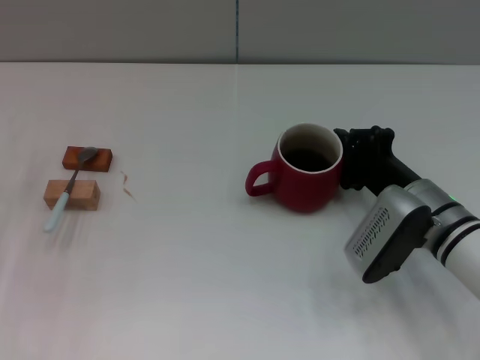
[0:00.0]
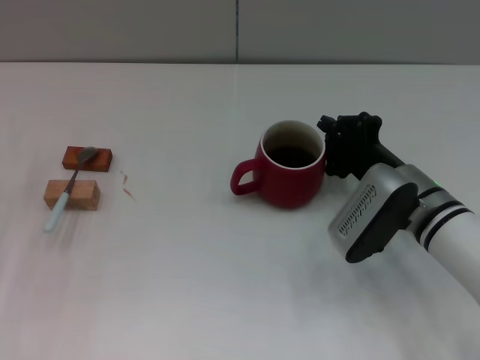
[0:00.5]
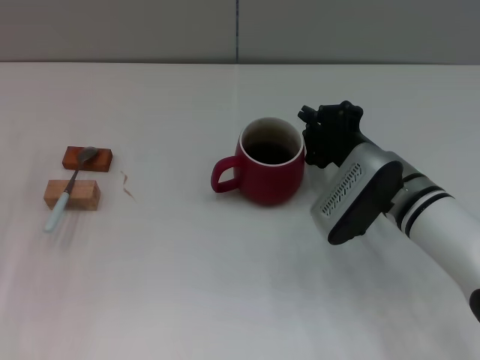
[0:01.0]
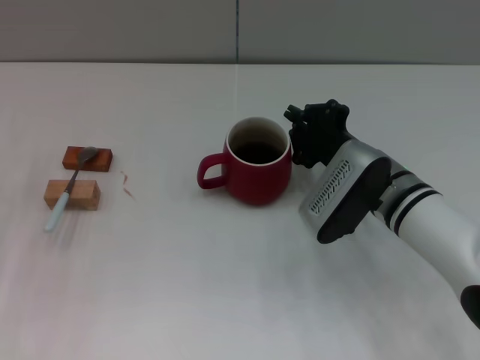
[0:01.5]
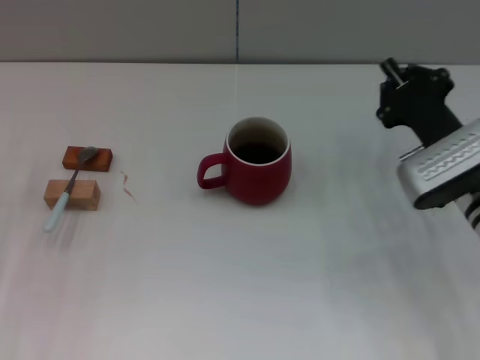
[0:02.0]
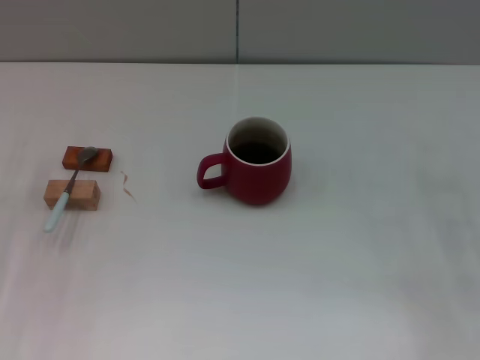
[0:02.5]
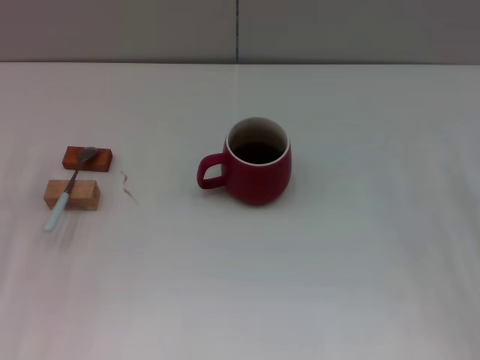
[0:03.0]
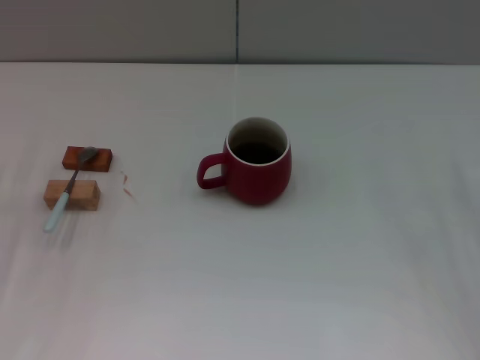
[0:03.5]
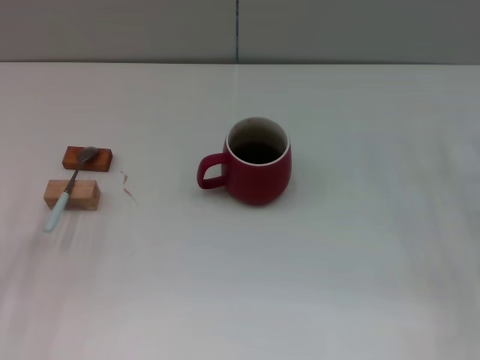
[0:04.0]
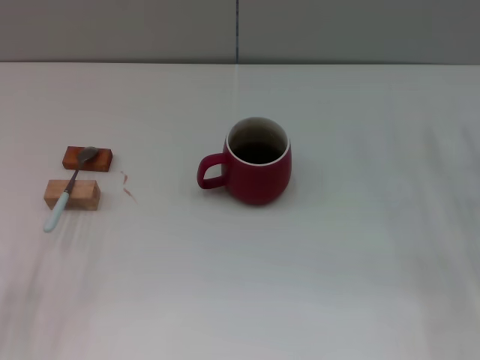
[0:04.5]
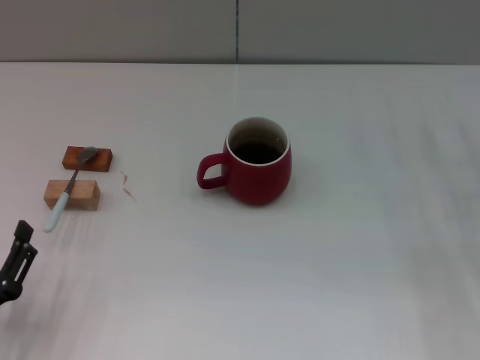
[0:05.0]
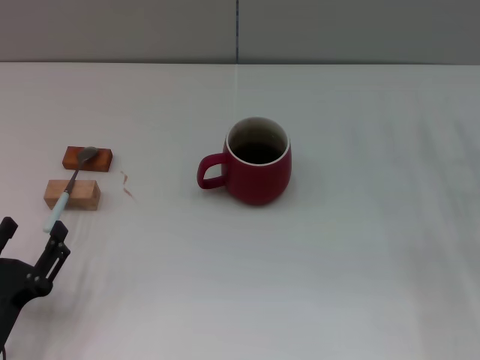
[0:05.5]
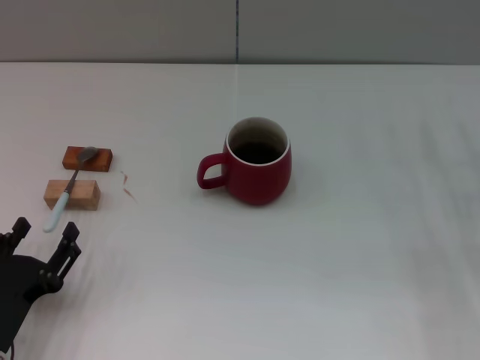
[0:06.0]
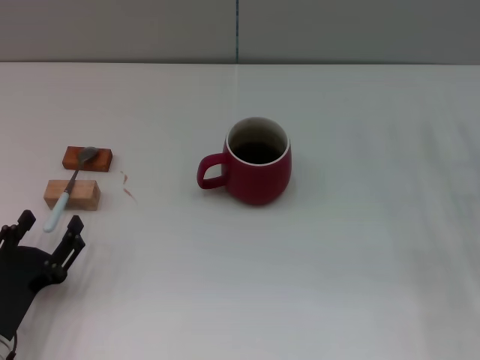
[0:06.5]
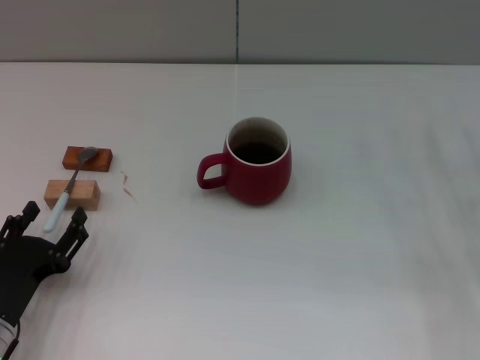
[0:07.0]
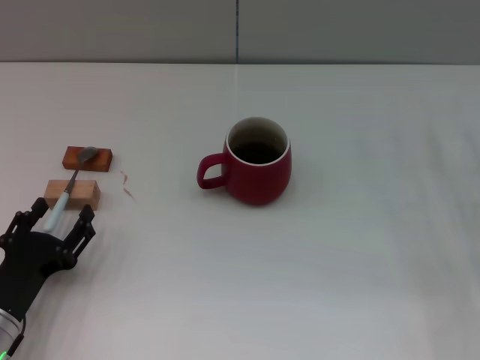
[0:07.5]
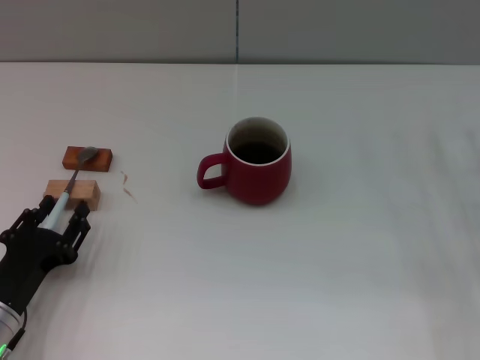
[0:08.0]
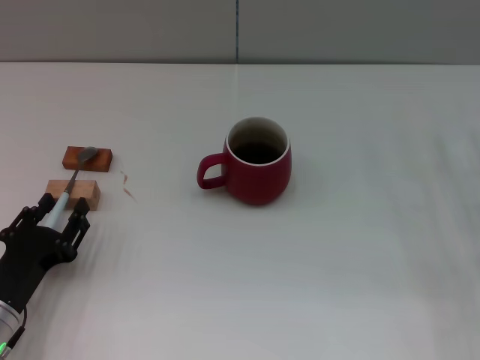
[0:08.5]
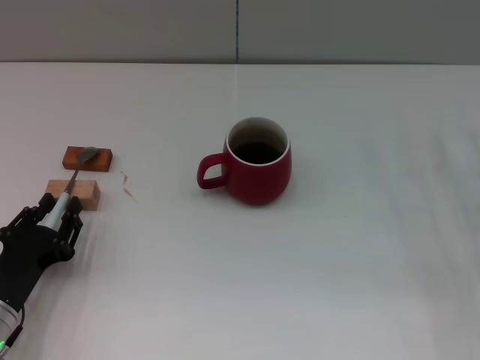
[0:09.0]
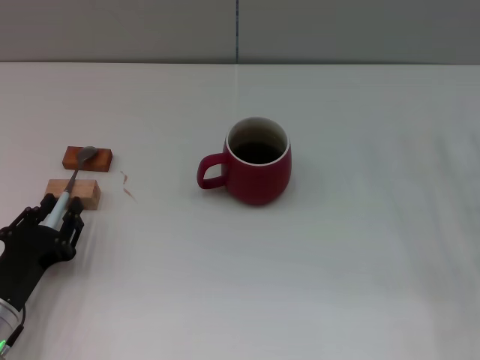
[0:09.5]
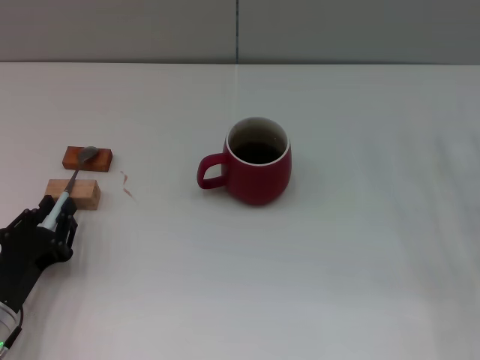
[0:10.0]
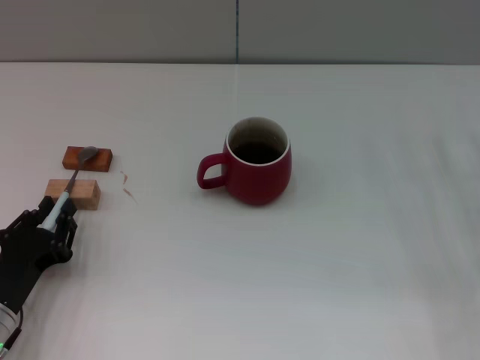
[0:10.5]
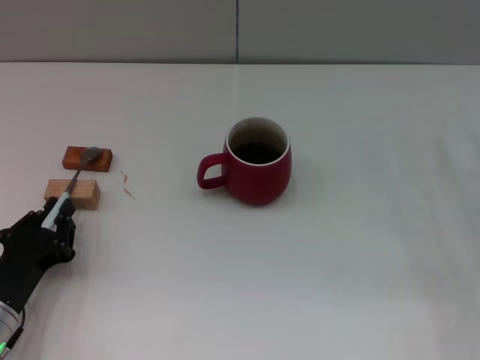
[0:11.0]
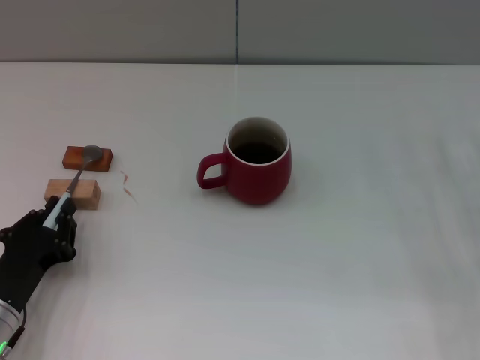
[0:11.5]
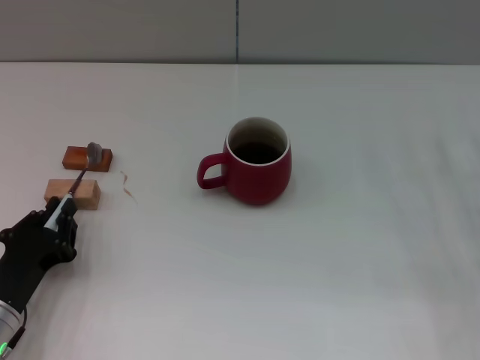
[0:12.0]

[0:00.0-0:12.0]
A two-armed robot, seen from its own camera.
Task of the whole recording: Move the red cup to the center, lift the blue spoon, stir it three times in the cup, and put the spoon into the cup.
0:00.0 to 0:02.0: The right gripper changes place by some 5 cm.
0:02.0 to 0:04.0: The right gripper goes roughly 10 cm to the right, and opens its fingers.
0:04.0 to 0:06.0: The left gripper heads backward and to the right, covering roughly 10 cm.
0:06.0 to 0:08.0: The grippers stay close to where they were, moving slightly.
0:08.0 to 0:10.0: The left gripper closes up.
0:10.0 to 0:12.0: Neither gripper changes place.

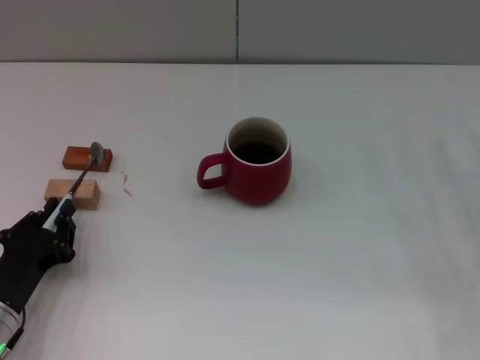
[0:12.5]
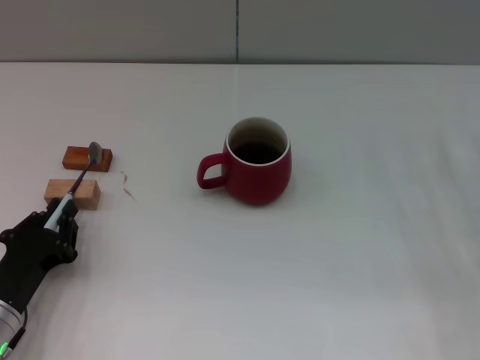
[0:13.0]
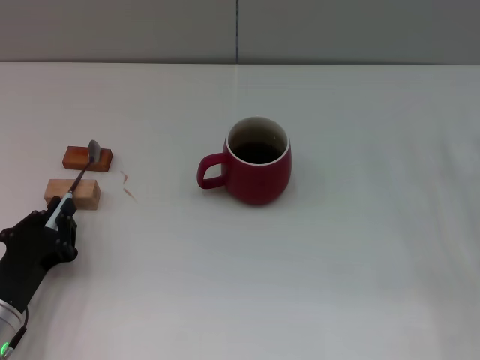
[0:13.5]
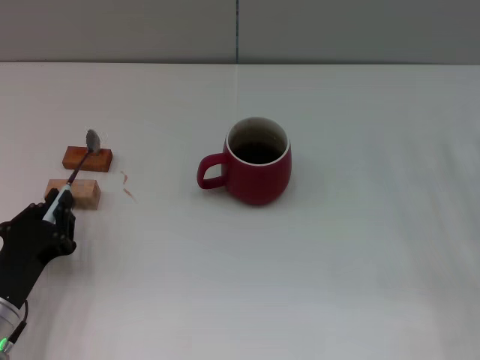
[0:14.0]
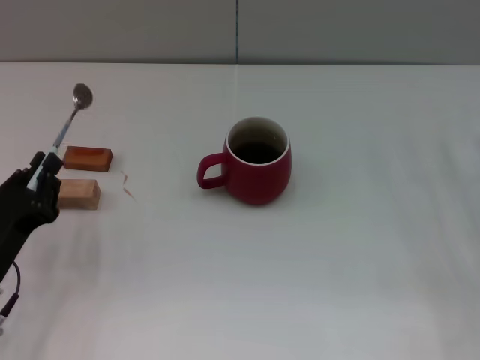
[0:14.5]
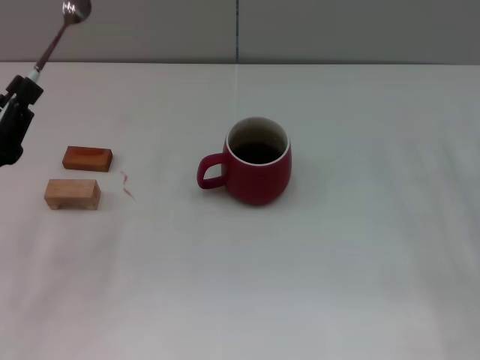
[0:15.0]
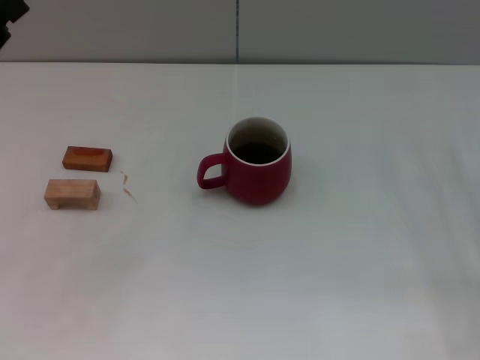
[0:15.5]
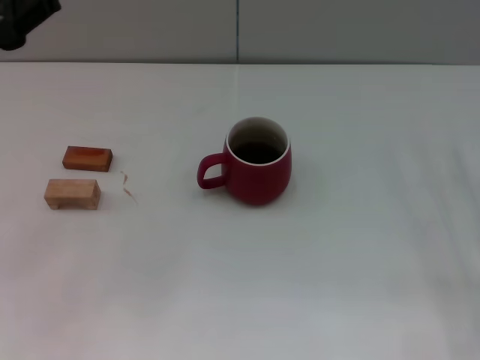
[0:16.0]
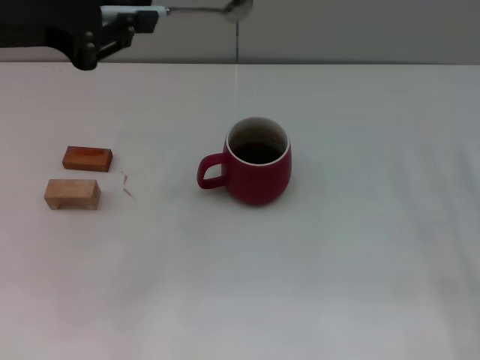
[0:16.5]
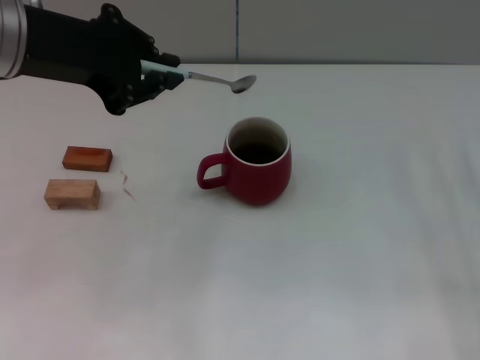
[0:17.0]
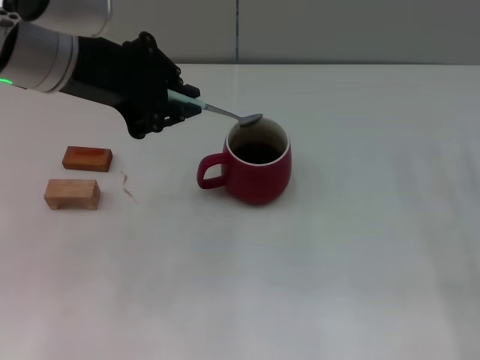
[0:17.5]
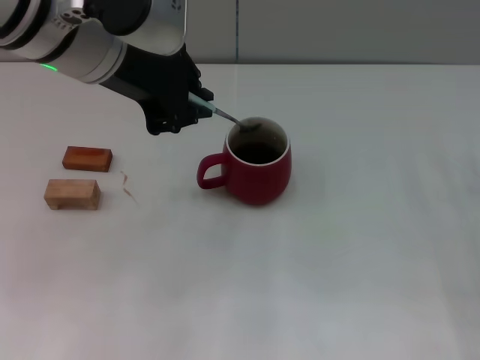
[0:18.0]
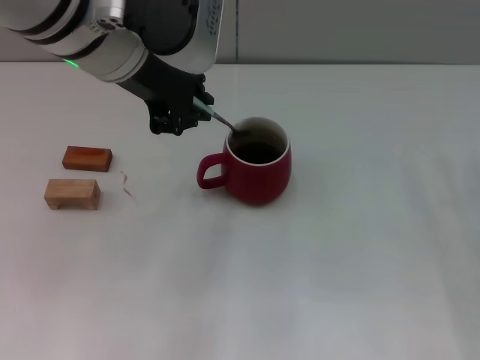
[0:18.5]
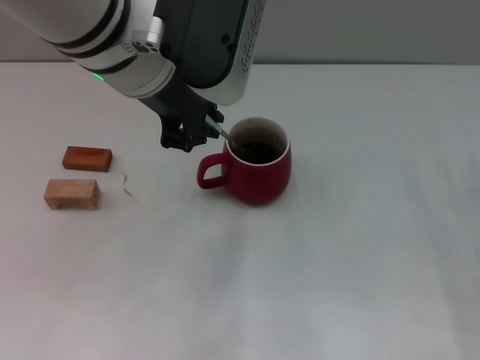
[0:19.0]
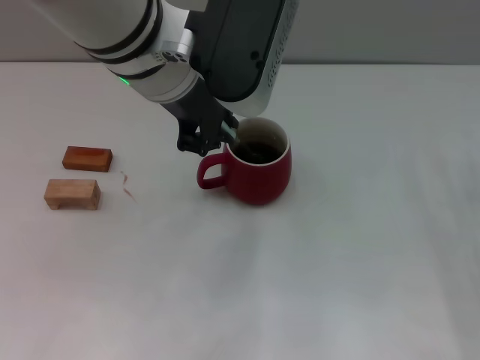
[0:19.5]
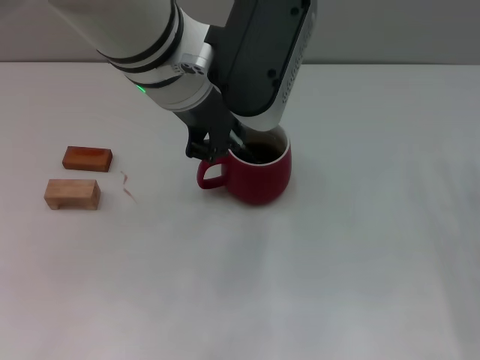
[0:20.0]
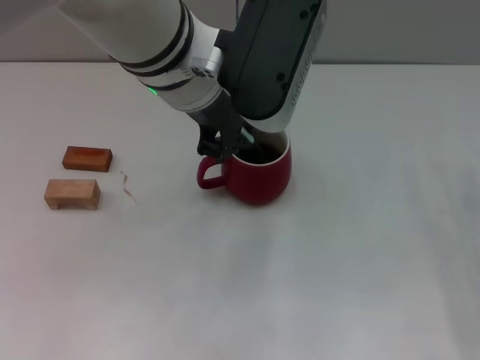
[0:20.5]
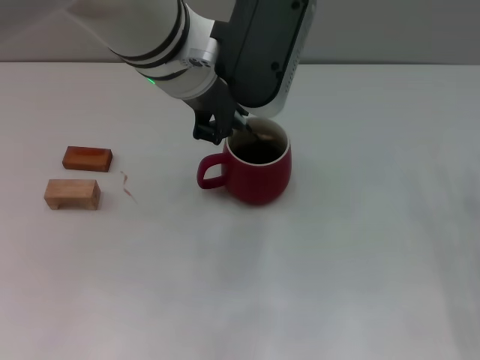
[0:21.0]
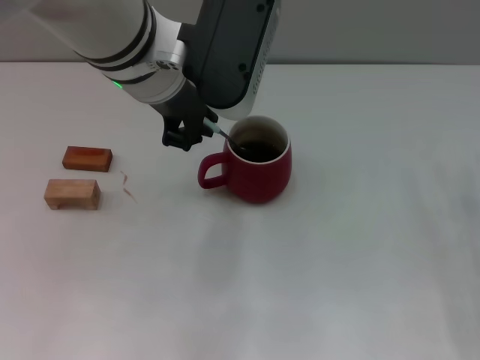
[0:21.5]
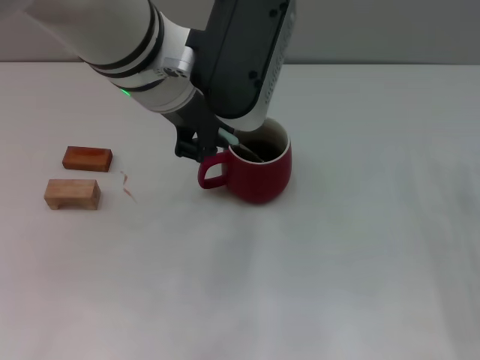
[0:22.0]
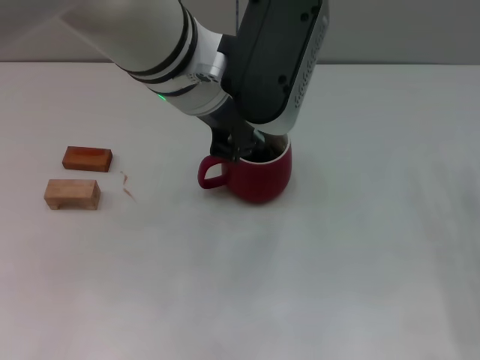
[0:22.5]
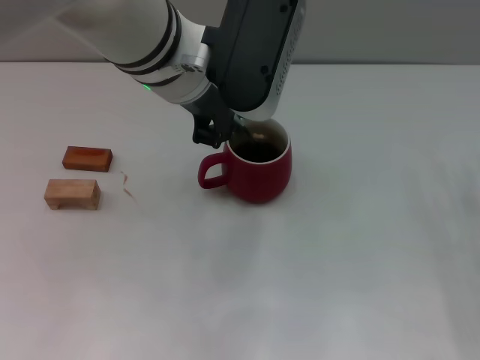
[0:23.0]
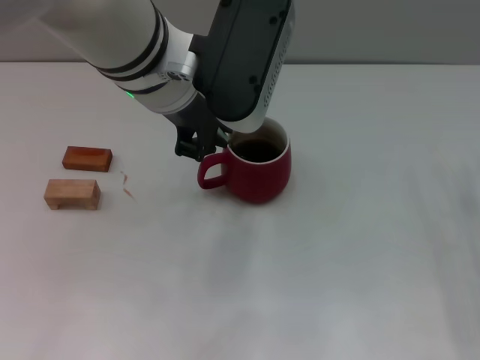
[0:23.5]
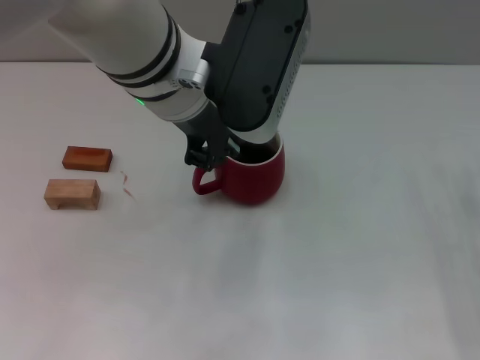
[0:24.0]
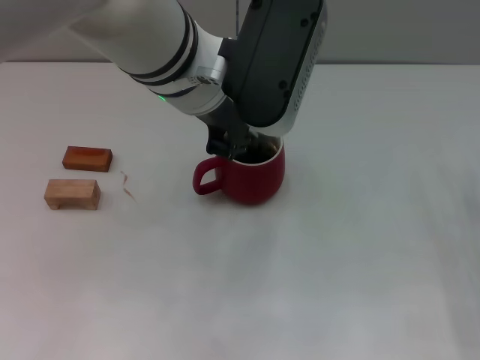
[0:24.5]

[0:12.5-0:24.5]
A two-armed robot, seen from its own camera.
Task of the whole recording: Move the red cup to the center, lift the blue spoon, stir it three times in the cup, and put the spoon into the cup.
Step, 0:12.5 to 0:14.5: Pick up the spoon with the left gripper.
0:12.5 to 0:14.5: There are only small adjustments of the grippers.
0:14.5 to 0:16.5: The left gripper moves upward and forward, about 30 cm.
0:16.5 to 0:18.5: The left gripper shifts roughly 15 cm to the right.
0:18.5 to 0:20.5: The left gripper heads to the right, covering roughly 5 cm.
0:20.5 to 0:24.5: The grippers move only a little.

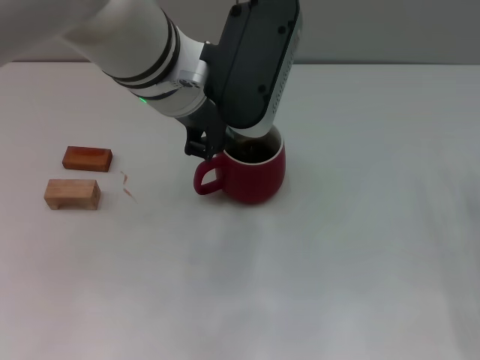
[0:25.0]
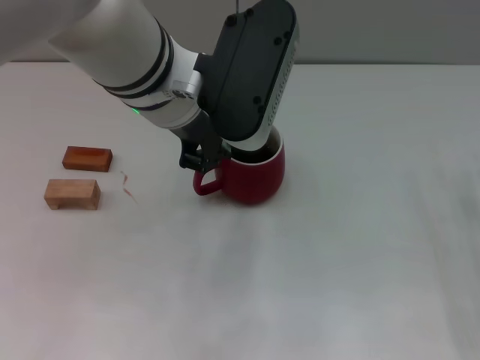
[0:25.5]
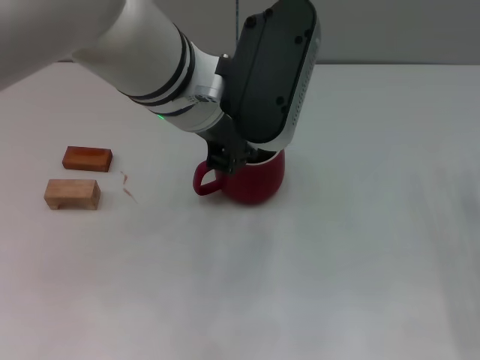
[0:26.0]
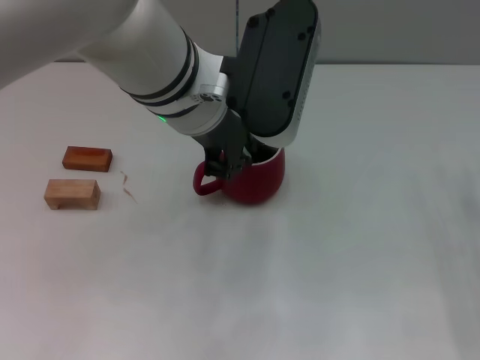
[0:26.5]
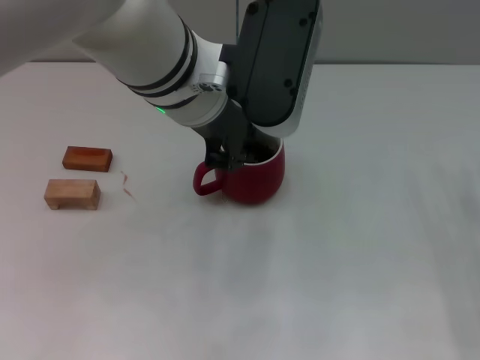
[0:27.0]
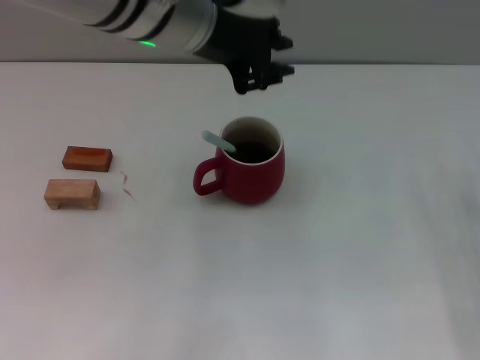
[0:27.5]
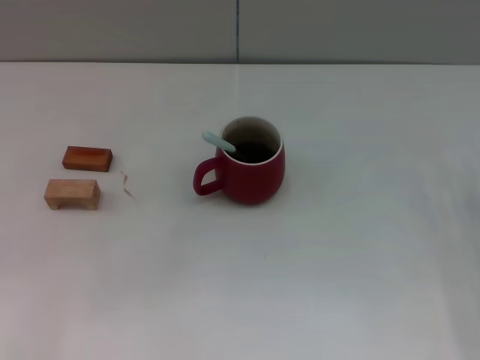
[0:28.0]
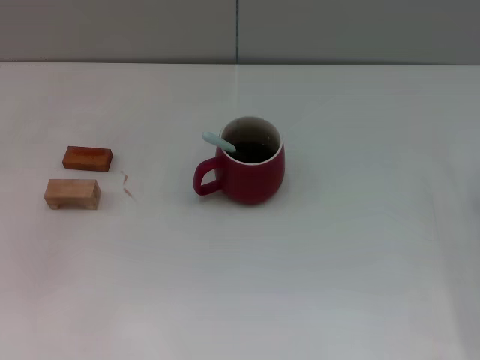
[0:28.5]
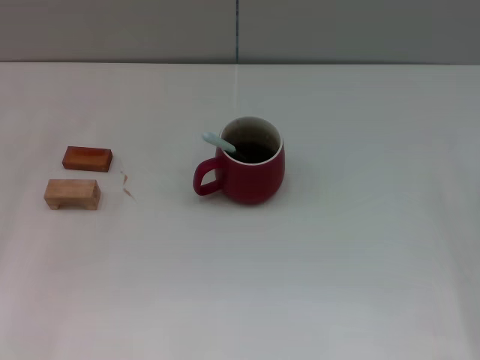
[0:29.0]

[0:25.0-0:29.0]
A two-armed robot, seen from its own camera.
Task of the whole recording: Move the red cup to the center, lift the blue spoon, stir it three times in the cup, and put the spoon into the cup.
Step, 0:25.0 to 0:27.0: Stir the coffee in the cup with the left gripper.
0:25.0 to 0:27.0: The grippers move only a little.
0:27.0 to 0:29.0: The left gripper heads to the left, covering about 30 cm.
